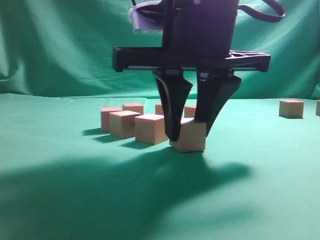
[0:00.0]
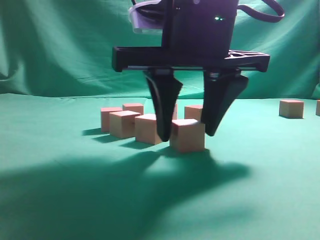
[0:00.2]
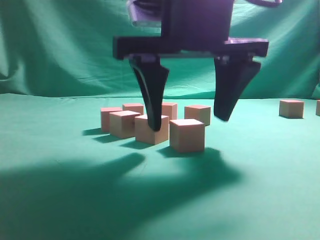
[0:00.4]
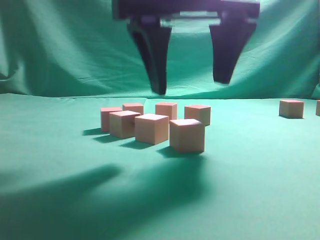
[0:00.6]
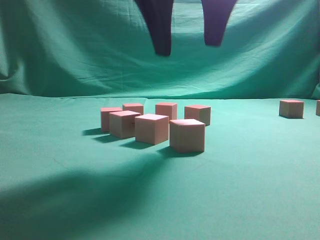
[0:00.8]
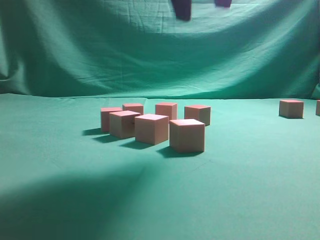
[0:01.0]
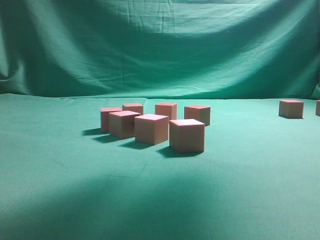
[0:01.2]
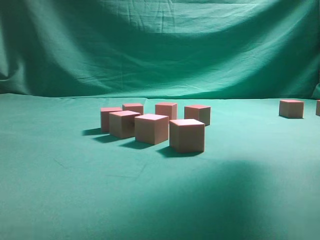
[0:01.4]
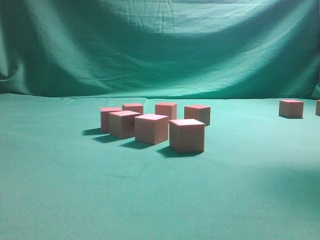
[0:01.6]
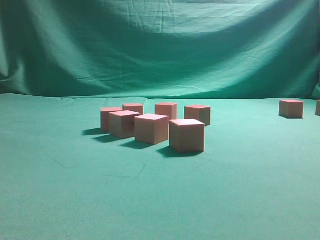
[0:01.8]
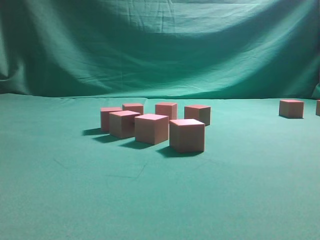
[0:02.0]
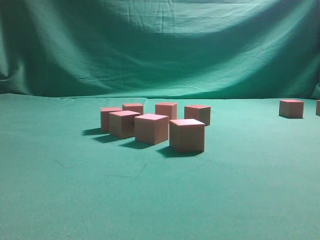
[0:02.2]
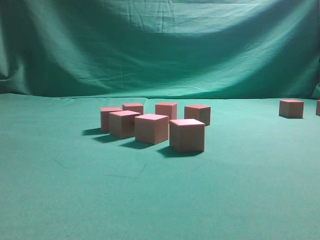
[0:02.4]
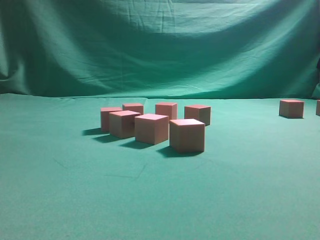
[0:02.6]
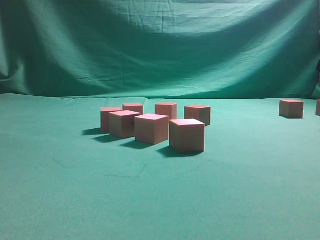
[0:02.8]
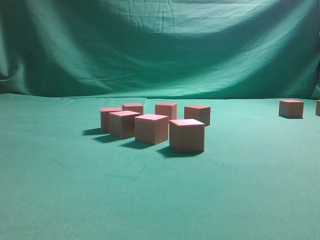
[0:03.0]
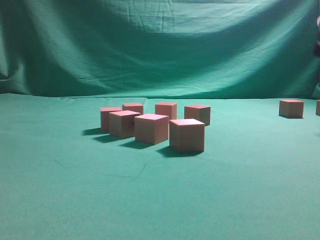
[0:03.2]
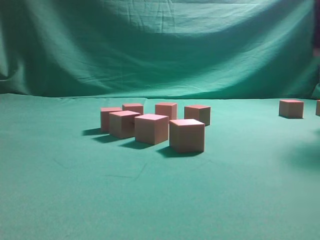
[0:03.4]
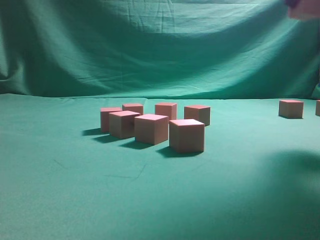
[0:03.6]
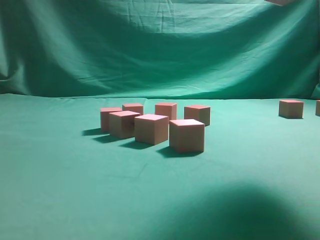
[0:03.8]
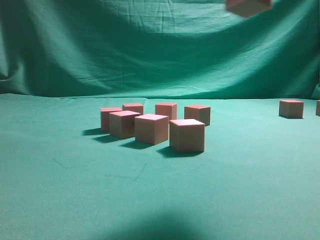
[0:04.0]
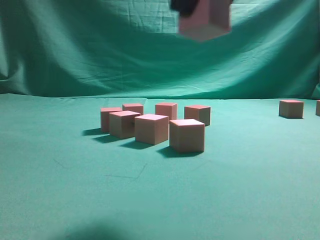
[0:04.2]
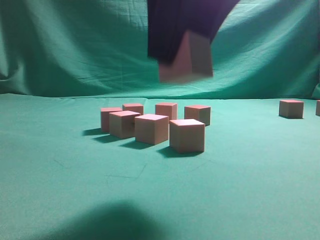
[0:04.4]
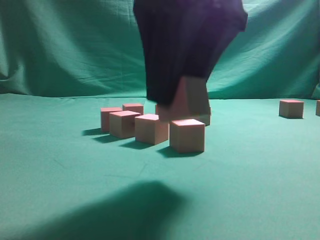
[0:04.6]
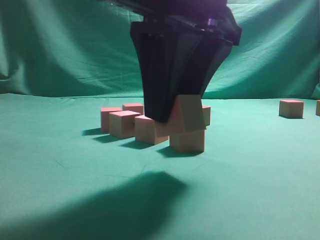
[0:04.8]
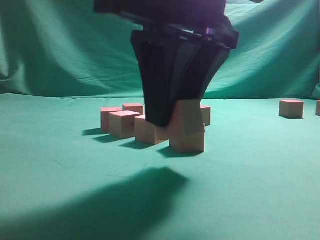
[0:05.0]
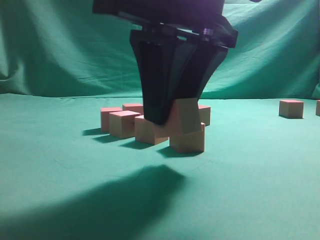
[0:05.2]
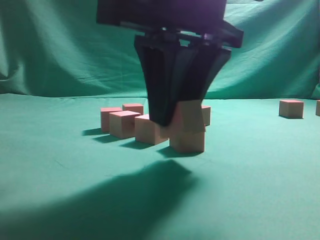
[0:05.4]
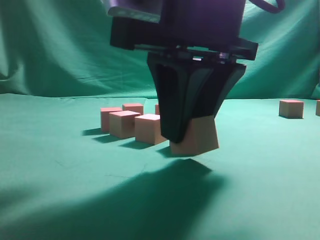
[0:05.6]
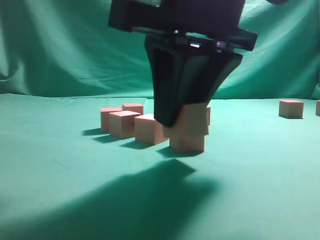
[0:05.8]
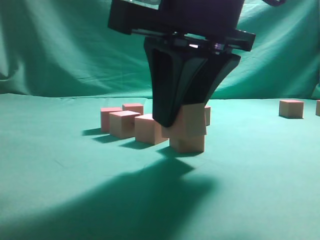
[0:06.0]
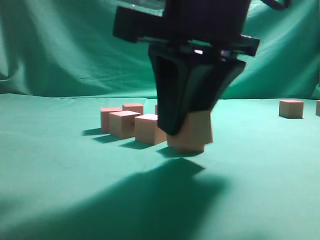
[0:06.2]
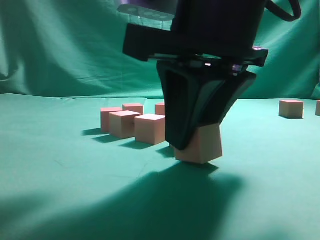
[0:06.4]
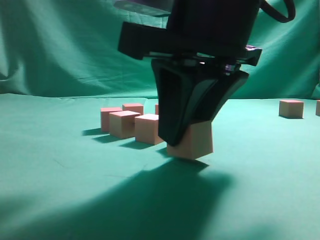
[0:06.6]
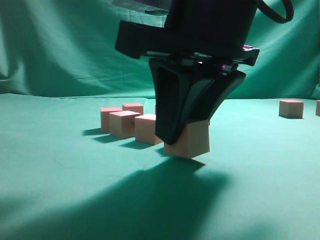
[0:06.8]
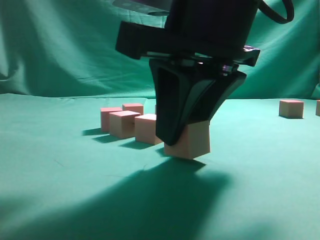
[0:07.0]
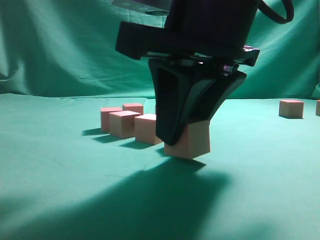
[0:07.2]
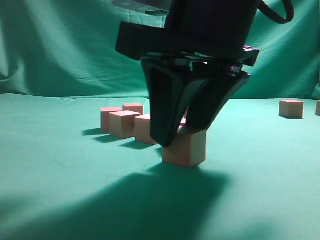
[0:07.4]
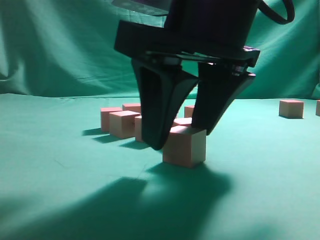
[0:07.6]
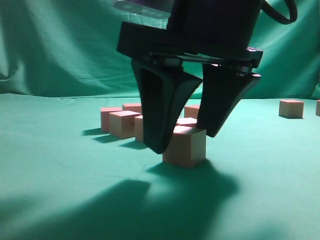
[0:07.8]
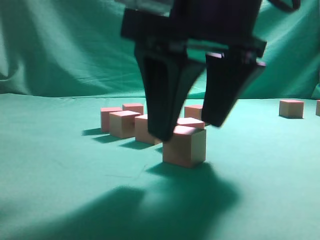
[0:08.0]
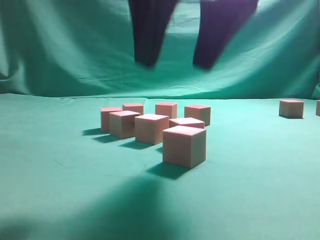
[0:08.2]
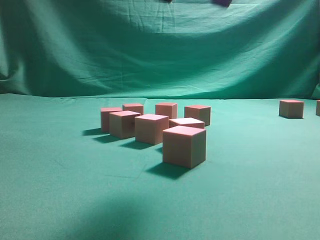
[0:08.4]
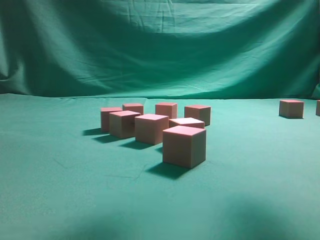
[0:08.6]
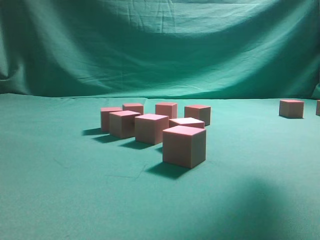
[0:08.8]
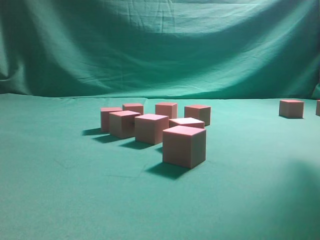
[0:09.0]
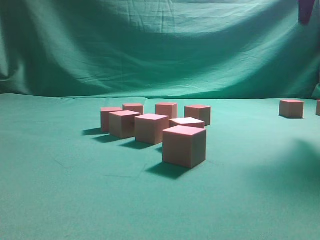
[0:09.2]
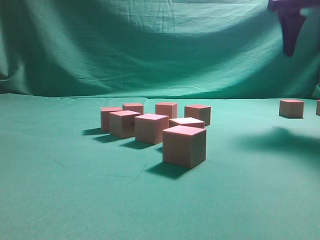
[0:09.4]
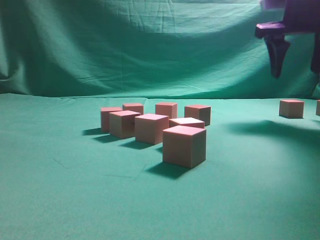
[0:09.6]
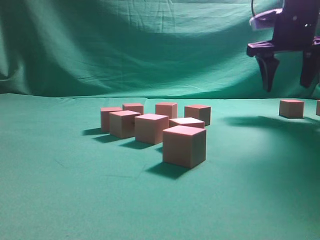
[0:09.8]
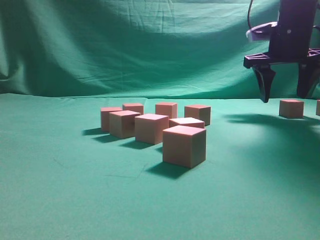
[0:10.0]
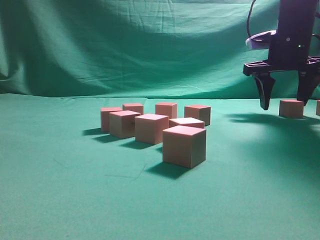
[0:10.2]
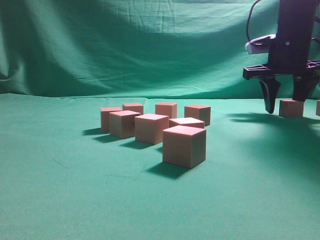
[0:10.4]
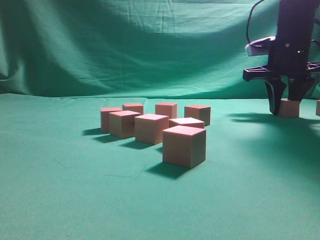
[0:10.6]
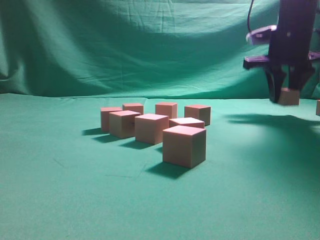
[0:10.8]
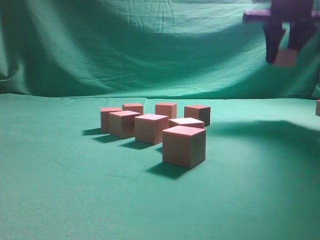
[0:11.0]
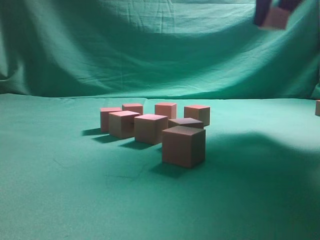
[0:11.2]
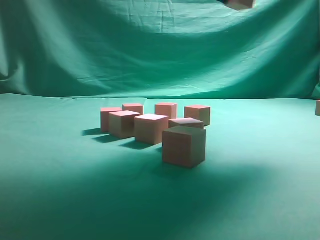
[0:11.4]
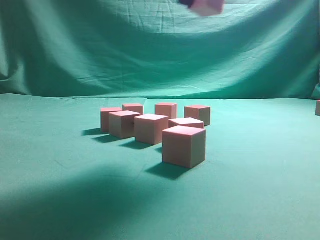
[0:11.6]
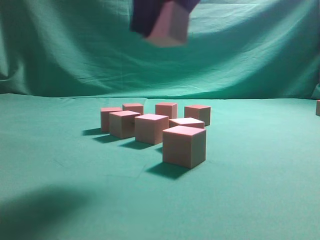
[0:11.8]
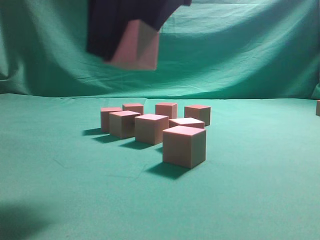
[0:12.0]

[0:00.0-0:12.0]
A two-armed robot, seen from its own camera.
Task of the whole recording: pick up the multiple cubes in two columns one by one and place them in another position on the table.
Step, 0.8 to 3.0 s: Pick up the block on the table.
Step, 3.2 to 8.0 s: Place the block at the correct position to assemble the letter S.
Step, 8.2 to 10.6 s: Pick up the block on the table.
0.0 to 1.6 s: The right gripper moves to the right, upward and forward, about 25 cm, and opens its fingers.
1.6 to 3.0 s: The right gripper is displaced downward and to the right by about 20 cm, and closes.
3.0 to 4.4 s: The right gripper heads to the left and backward, covering approximately 35 cm.
4.4 to 6.0 s: The right gripper is displaced downward by about 5 cm.
7.6 to 9.0 s: The right gripper is displaced to the right, upward and forward by roughly 25 cm.
9.0 to 10.4 s: The right gripper is displaced downward and forward by approximately 25 cm.
10.4 to 12.0 s: The right gripper heads backward and to the left, covering about 35 cm.

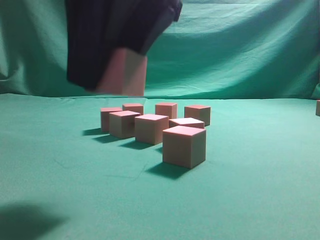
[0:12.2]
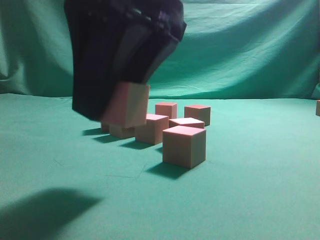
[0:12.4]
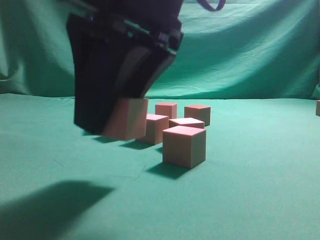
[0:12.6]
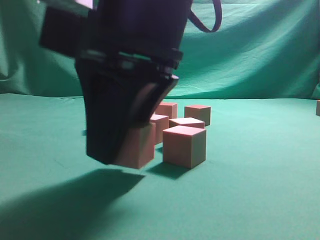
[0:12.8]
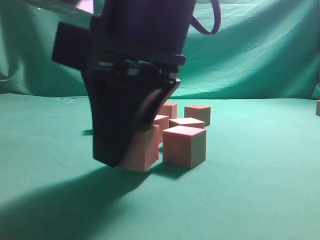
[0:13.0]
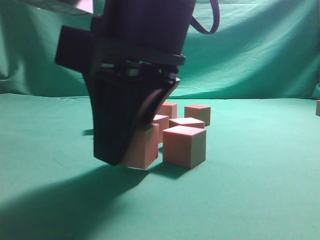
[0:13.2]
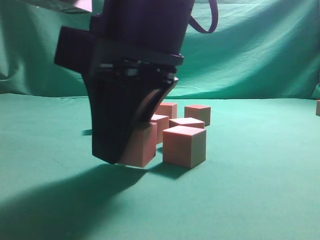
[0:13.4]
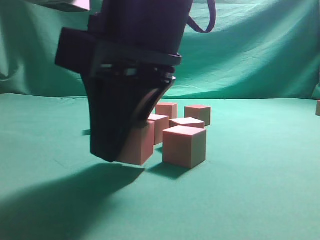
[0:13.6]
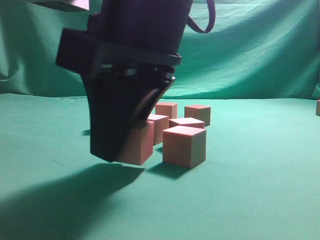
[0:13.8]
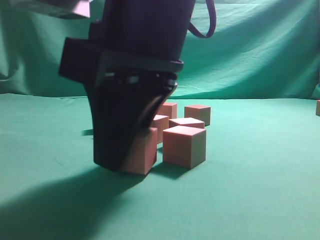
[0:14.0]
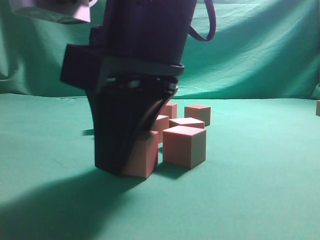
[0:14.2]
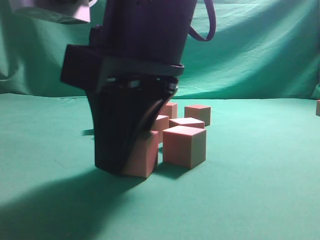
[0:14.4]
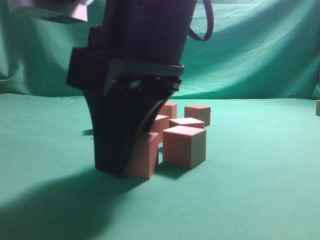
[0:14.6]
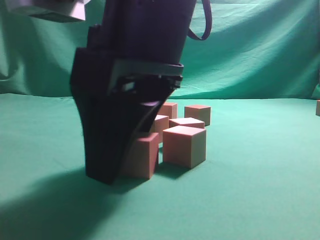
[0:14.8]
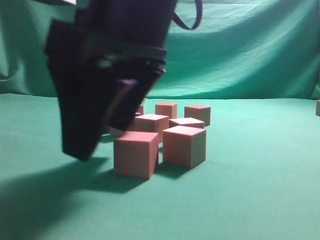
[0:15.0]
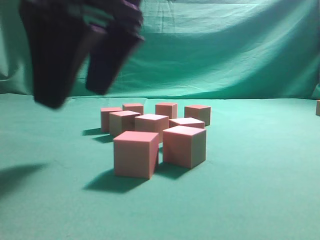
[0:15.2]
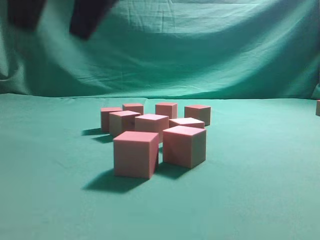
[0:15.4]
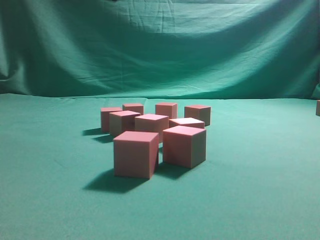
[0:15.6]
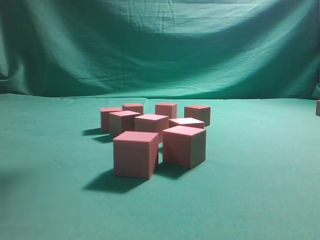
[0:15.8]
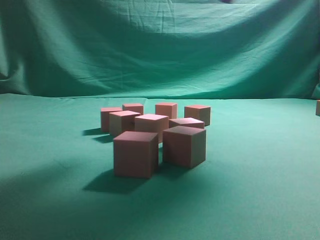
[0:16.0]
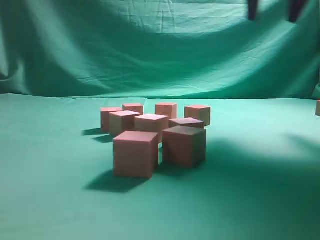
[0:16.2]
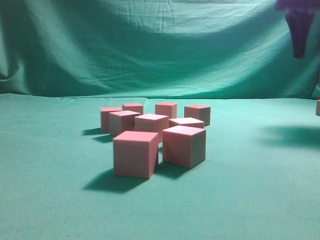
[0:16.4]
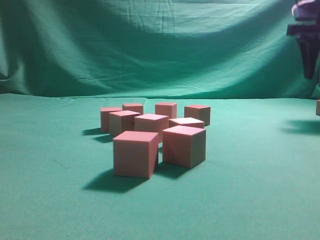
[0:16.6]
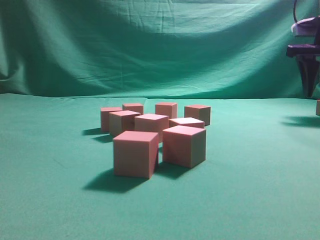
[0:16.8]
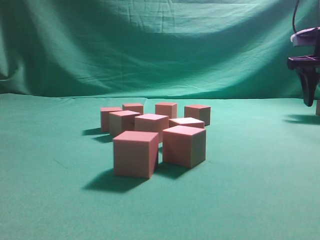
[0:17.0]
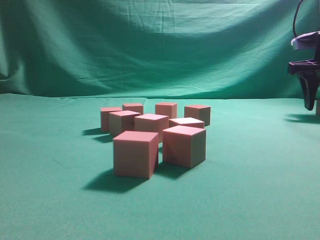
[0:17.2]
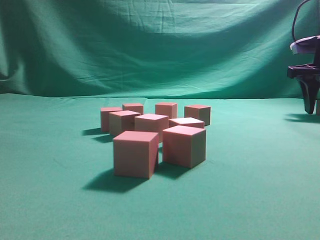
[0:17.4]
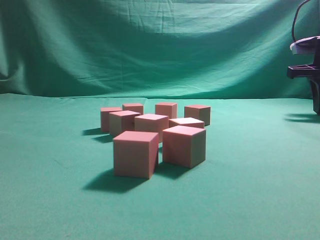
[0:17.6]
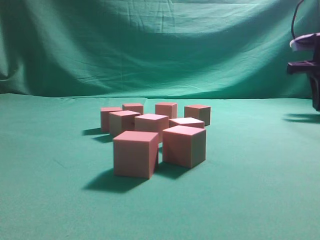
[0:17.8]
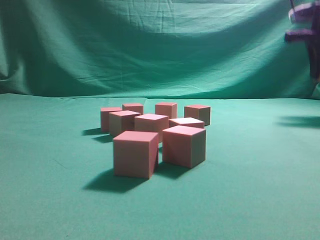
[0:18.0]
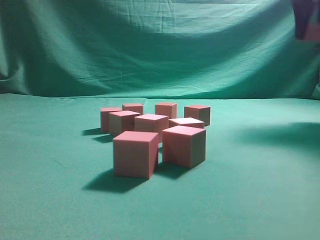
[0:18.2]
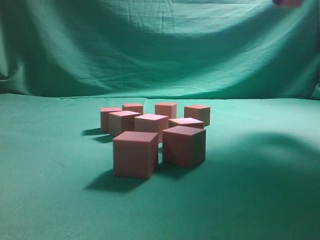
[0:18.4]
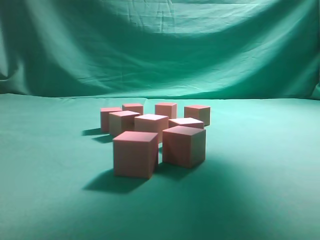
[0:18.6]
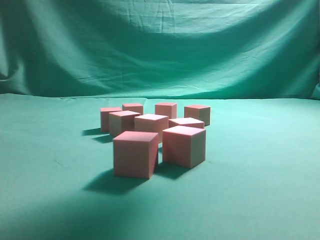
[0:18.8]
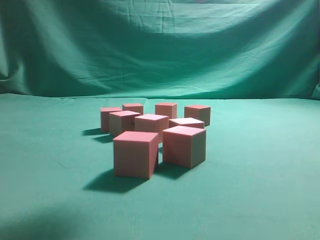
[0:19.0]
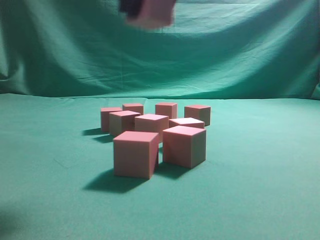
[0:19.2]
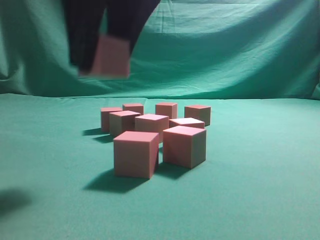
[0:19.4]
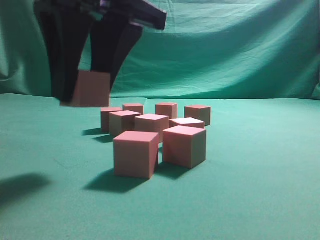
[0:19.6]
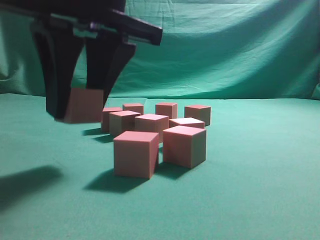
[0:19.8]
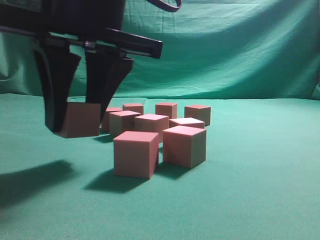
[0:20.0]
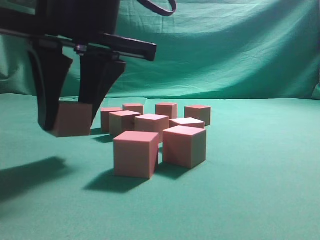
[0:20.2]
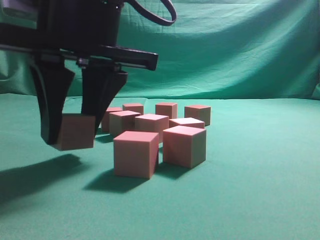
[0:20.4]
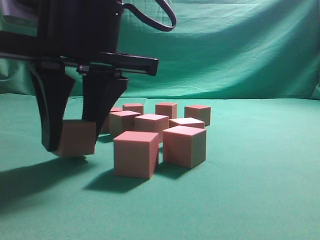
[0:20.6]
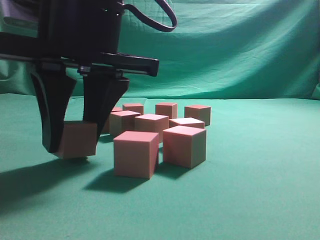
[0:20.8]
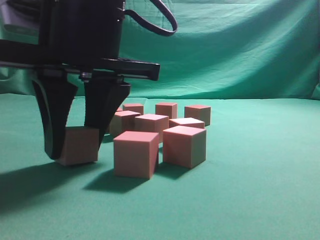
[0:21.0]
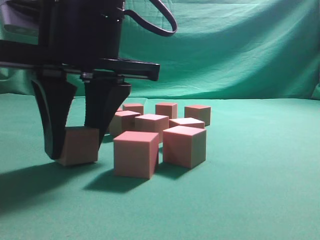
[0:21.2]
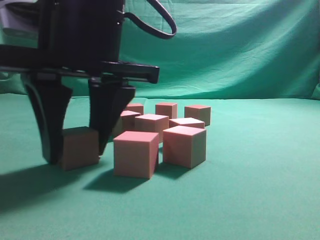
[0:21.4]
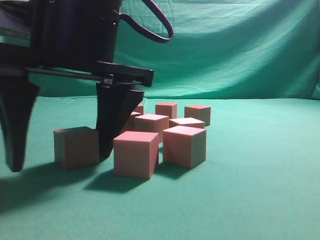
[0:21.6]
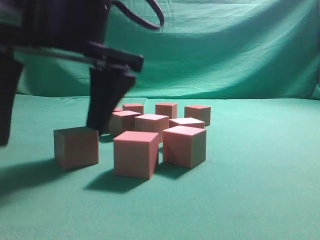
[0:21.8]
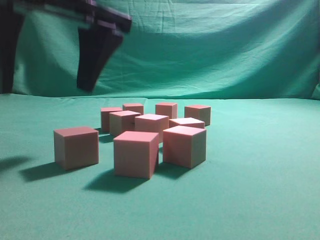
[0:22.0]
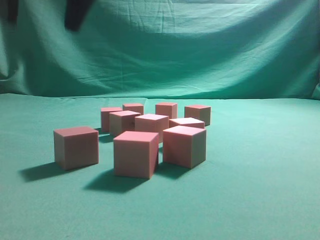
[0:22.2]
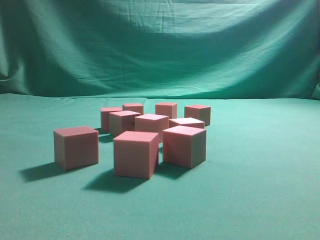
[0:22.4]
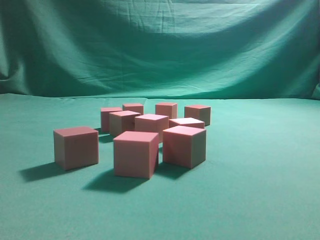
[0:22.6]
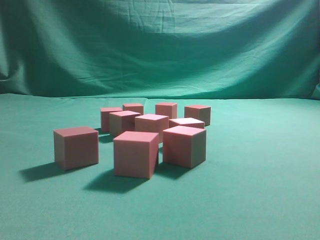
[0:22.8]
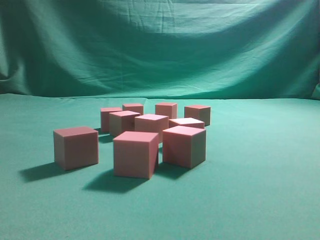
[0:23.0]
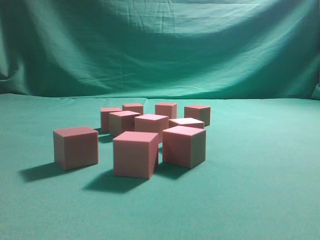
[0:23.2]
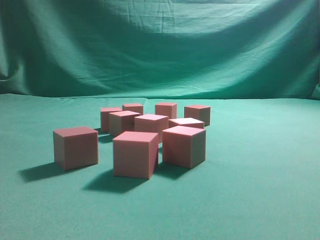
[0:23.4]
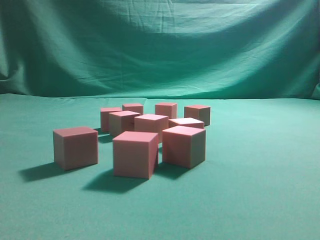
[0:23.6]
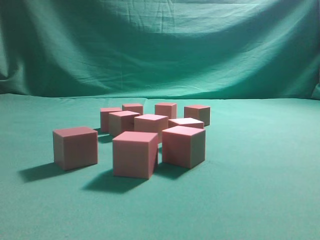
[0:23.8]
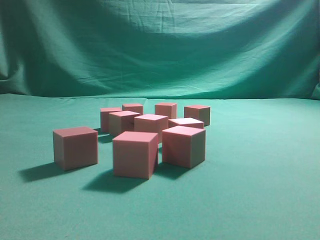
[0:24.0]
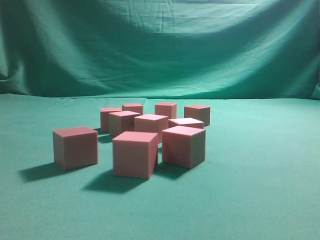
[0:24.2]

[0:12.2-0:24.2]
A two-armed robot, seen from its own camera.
Task of the whole recording: pick up the multiple cubes in two columns one by one and place them in another position on the table.
Step, 12.2 to 15.2 s: Place the block at the correct position to assemble the letter S.
Step, 15.4 to 17.8 s: Pick up the block on the table.
Step, 18.0 to 21.8 s: Place the block at the correct position to assemble the letter S.
12.2 to 13.8 s: The right gripper is displaced downward by some 5 cm.
13.8 to 15.2 s: The right gripper opens its fingers.
15.2 to 16.6 s: The right gripper heads to the right and forward, covering about 40 cm.
16.6 to 18.2 s: The right gripper moves upward, some 5 cm, and closes up.
18.2 to 19.8 s: The right gripper travels to the left and backward by about 40 cm.
19.8 to 21.2 s: The grippers stay close to where they were, moving slightly.
21.2 to 22.6 s: The right gripper goes roughly 30 cm upward, and opens, then closes again.
